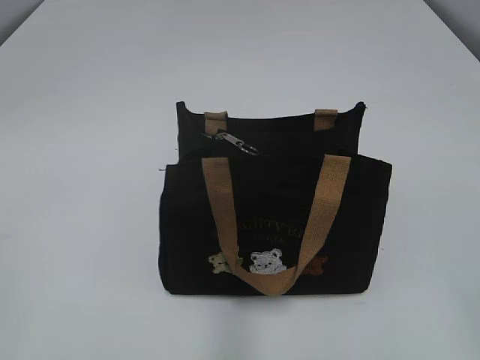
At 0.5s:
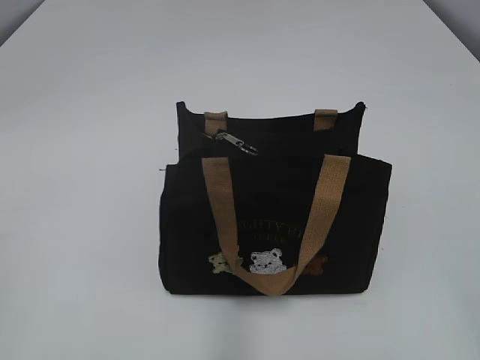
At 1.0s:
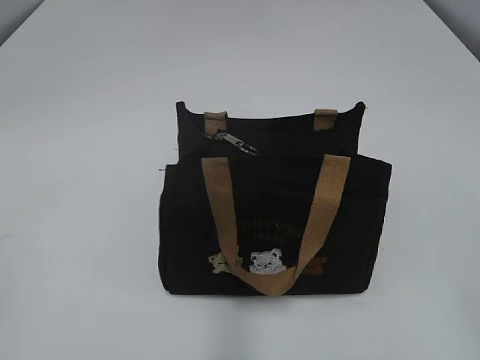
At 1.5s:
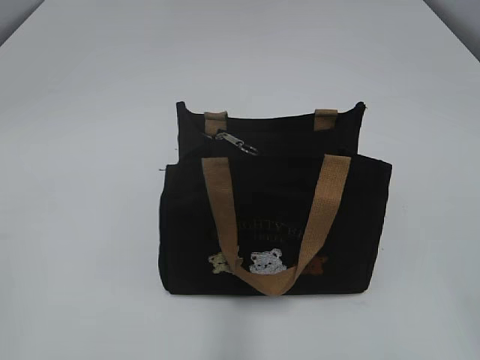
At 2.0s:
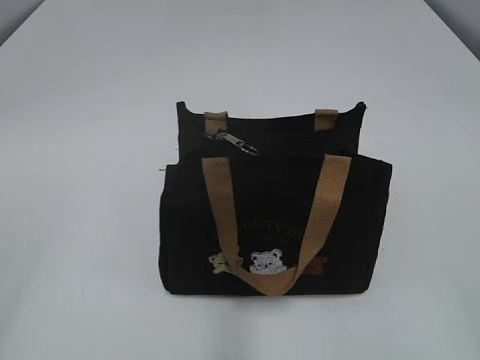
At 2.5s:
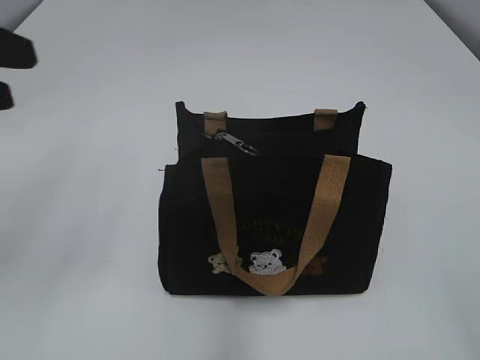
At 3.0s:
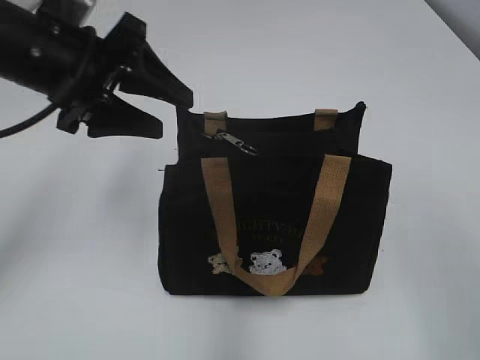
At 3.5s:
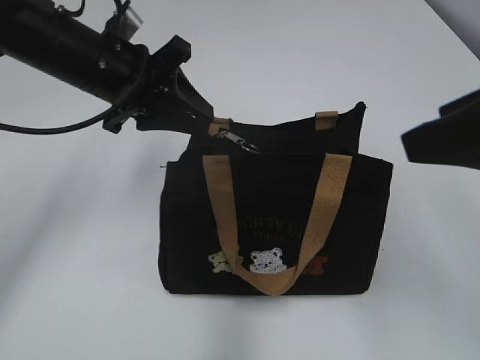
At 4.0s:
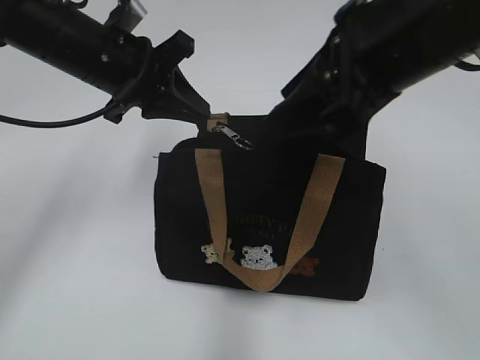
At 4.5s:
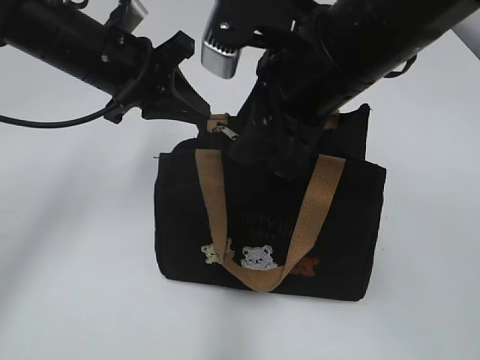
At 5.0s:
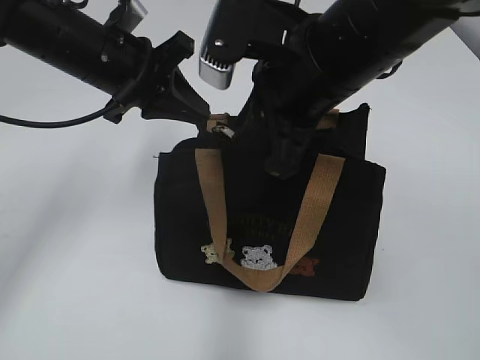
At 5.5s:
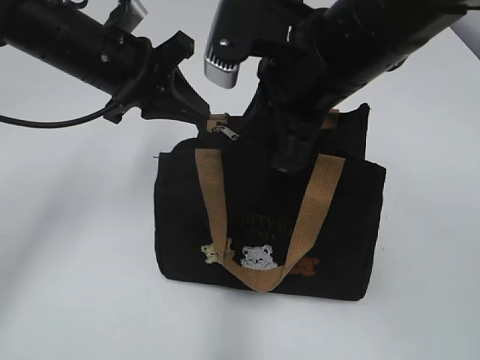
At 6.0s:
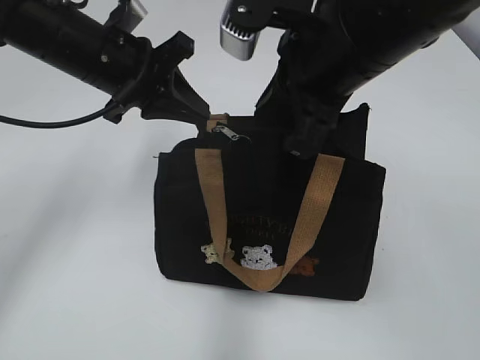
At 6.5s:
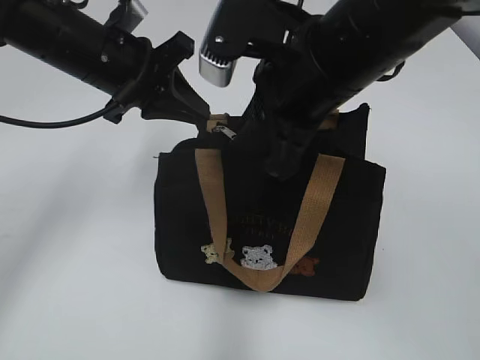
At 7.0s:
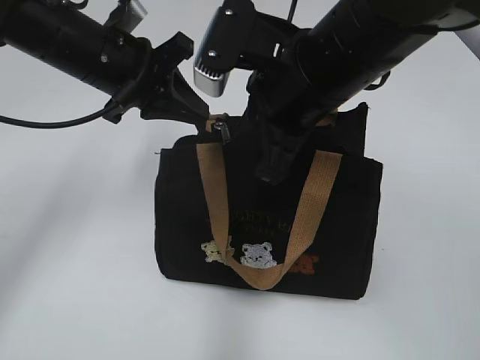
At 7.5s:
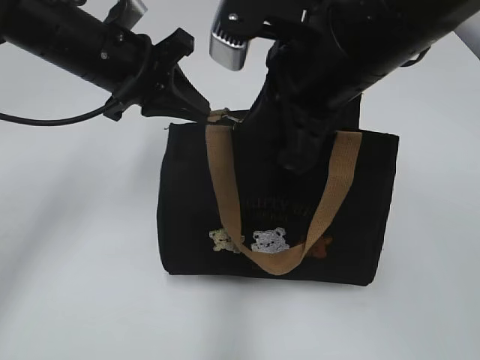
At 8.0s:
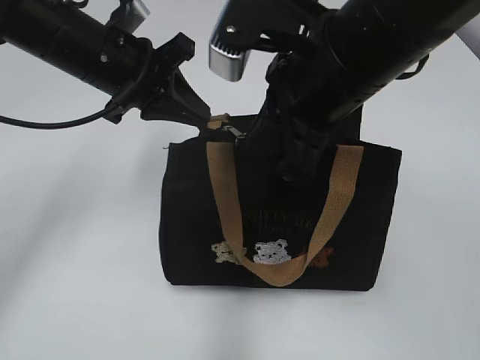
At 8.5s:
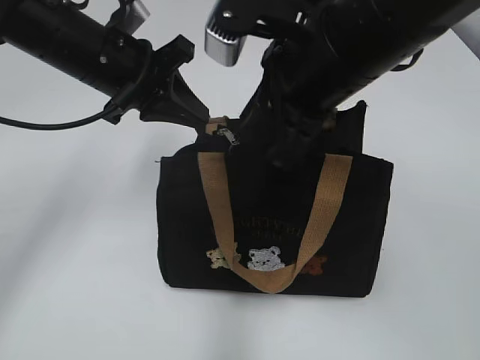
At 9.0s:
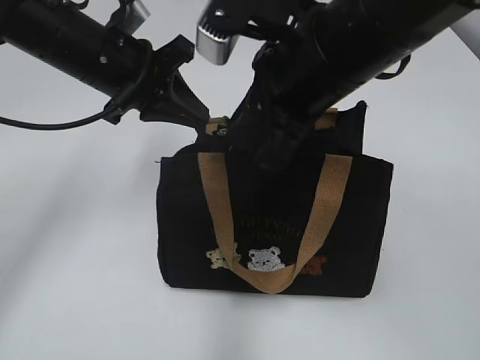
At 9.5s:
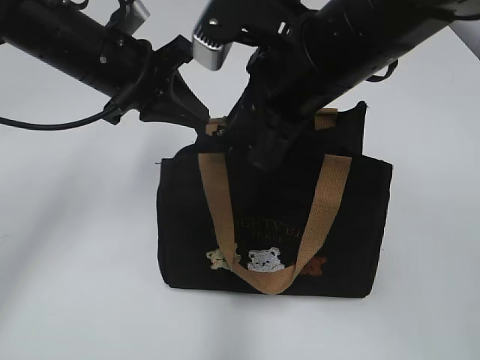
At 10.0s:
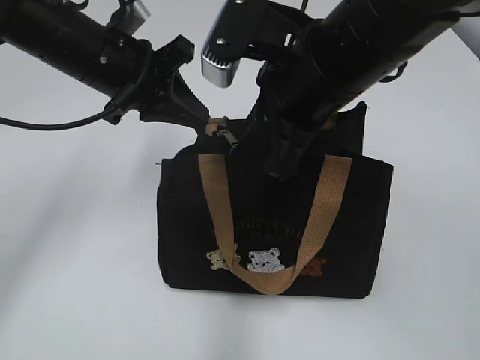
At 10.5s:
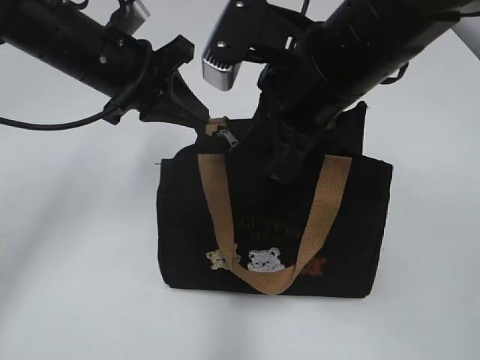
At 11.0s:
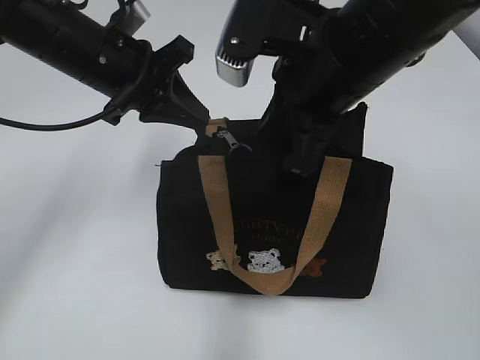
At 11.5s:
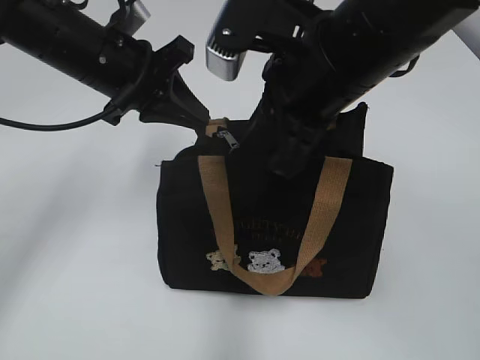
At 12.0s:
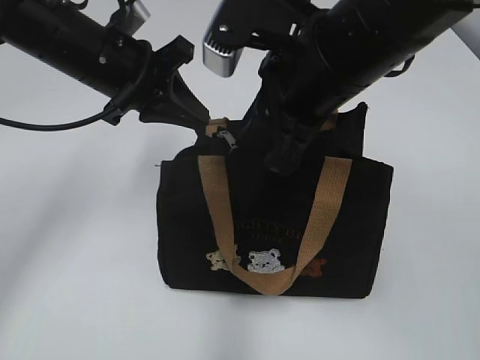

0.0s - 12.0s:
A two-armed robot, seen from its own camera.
2.0s - 4.0s: The right gripper moves forward and to the left, some 30 cm. The left gripper is displaced forward and to the right by approximately 40 cm, and closes its fingers.
4.0s - 6.0s: The right gripper closes up.
6.0s - 12.0s: The grippers move only a little.

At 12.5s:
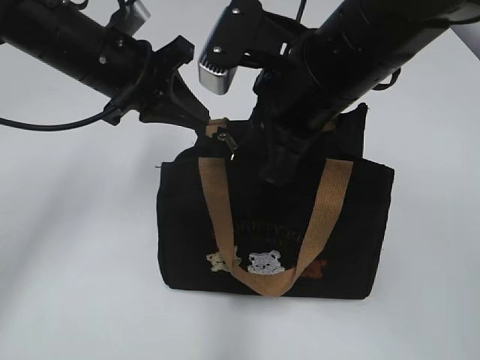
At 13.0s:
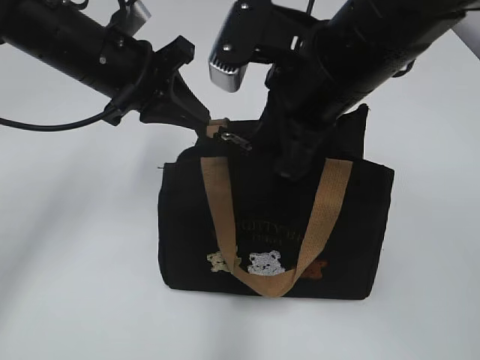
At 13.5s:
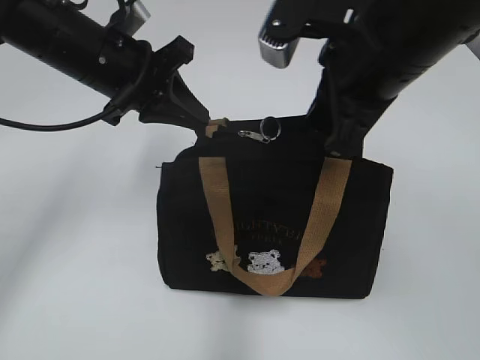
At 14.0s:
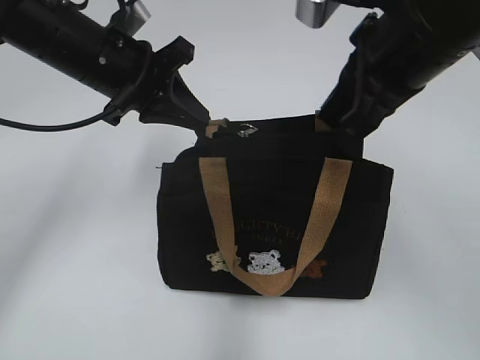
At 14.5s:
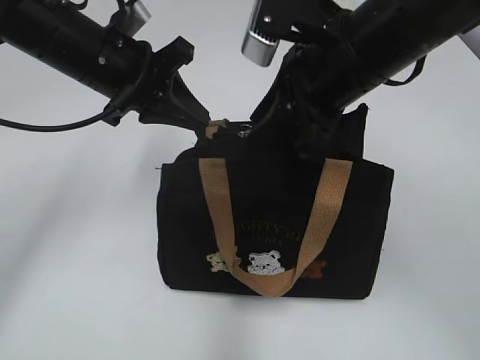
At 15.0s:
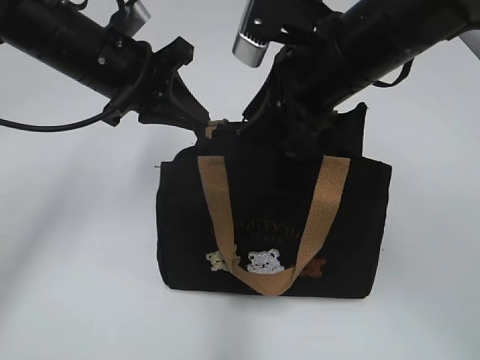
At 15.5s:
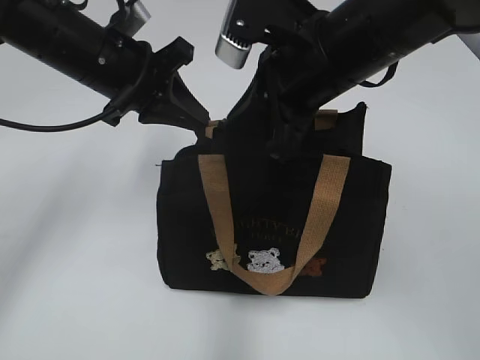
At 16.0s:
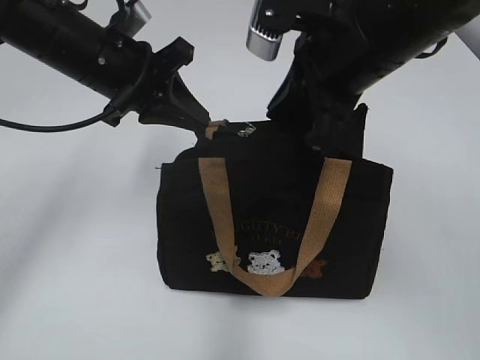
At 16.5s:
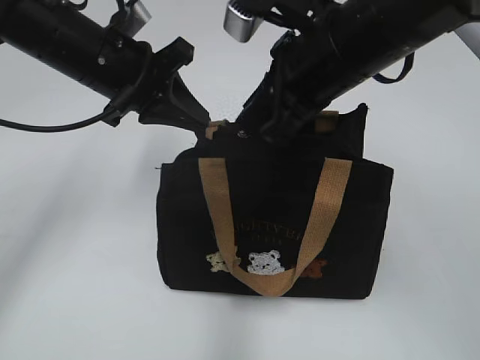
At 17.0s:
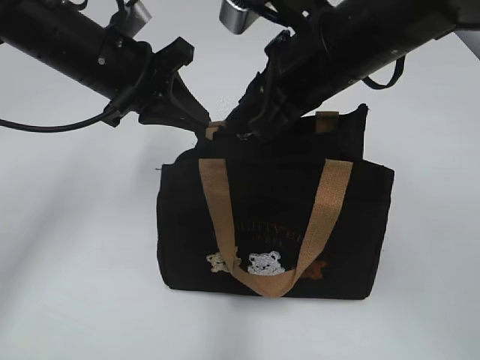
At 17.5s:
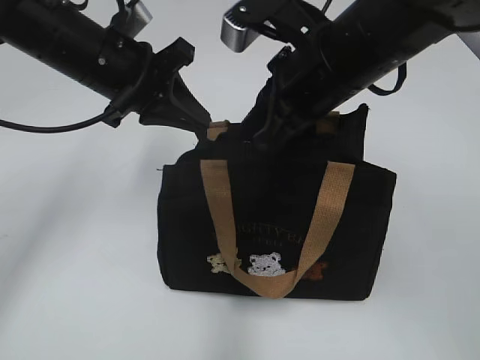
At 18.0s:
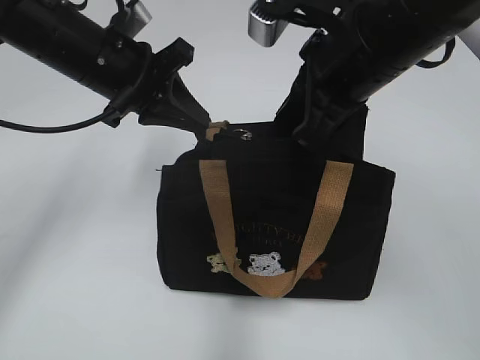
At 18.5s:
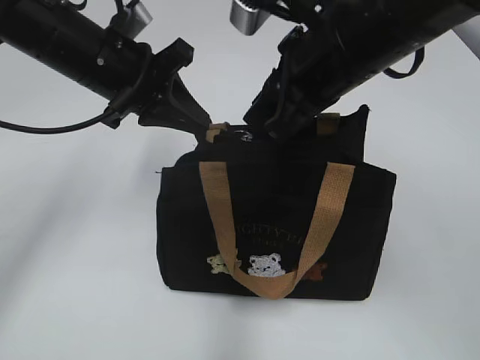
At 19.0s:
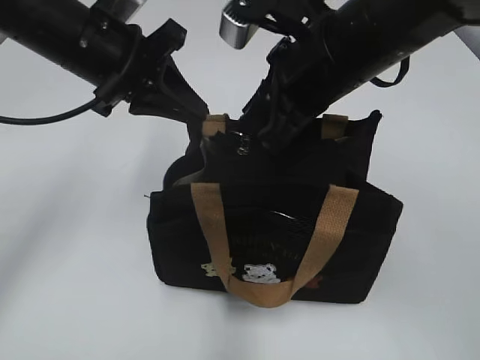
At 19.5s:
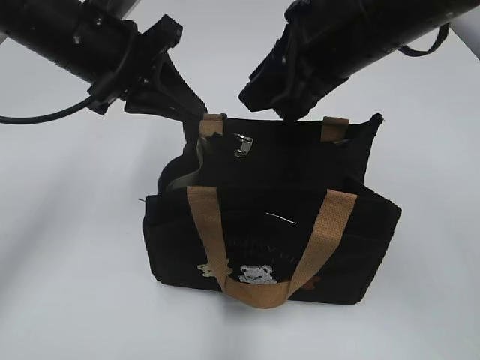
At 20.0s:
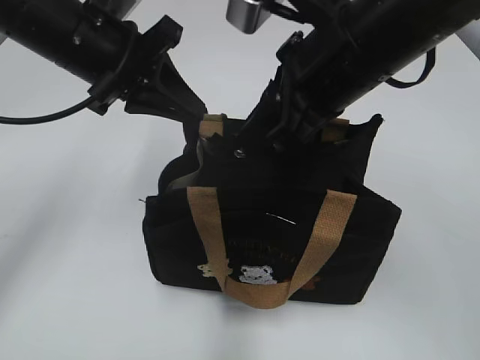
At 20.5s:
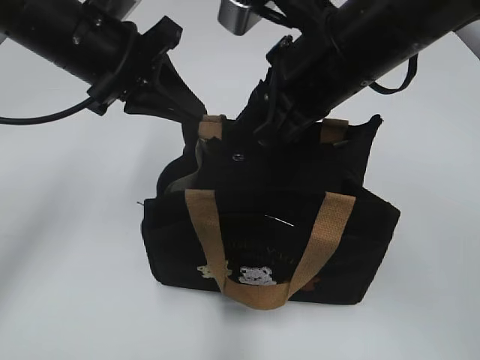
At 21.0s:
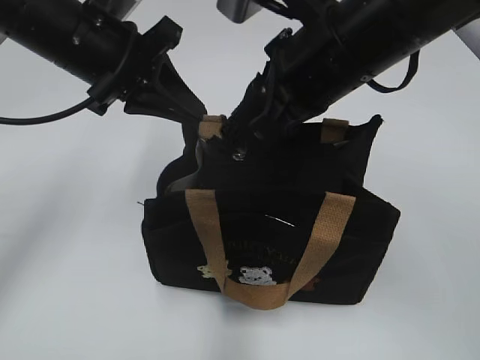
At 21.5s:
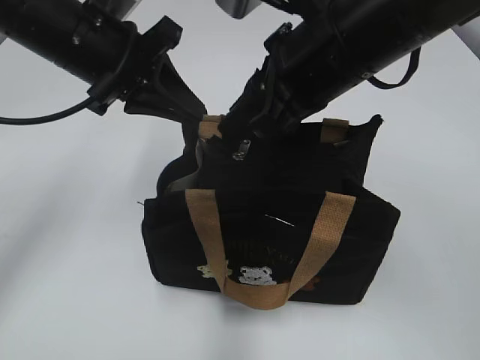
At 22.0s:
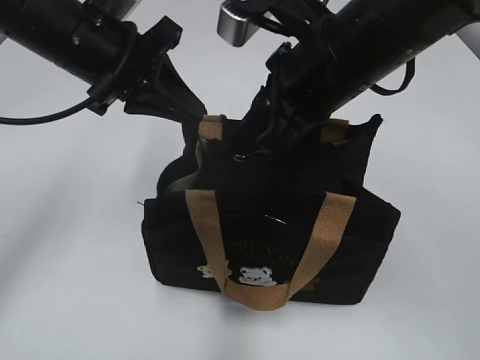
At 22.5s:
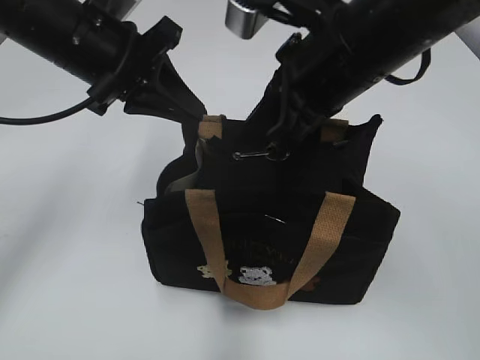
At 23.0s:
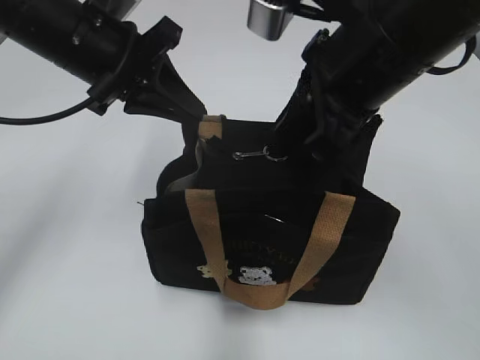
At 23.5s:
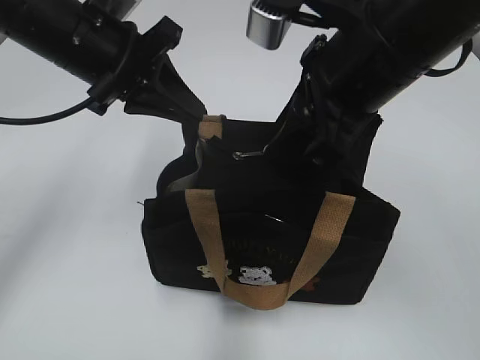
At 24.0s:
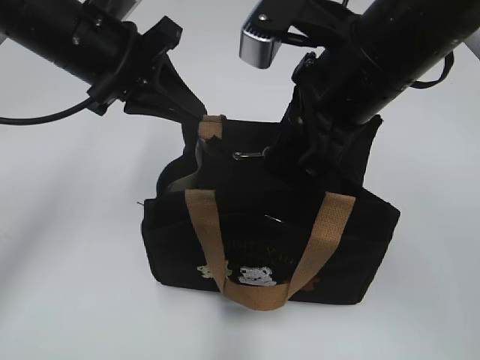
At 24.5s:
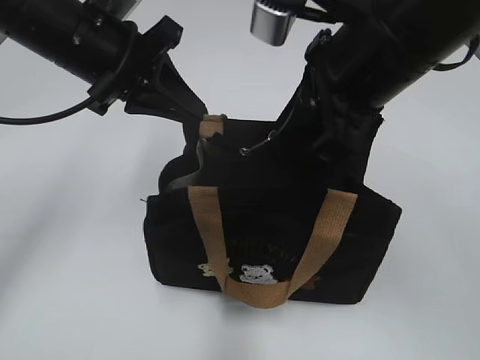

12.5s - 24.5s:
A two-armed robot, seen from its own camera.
14.5s - 20.5s: The grippers make only small movements.
20.5s - 22.5s: The right gripper closes its fingers.
22.5s - 24.5s: The right gripper opens.

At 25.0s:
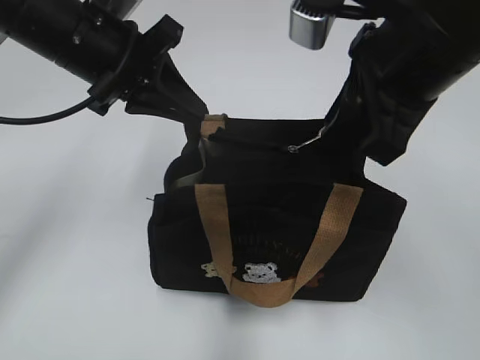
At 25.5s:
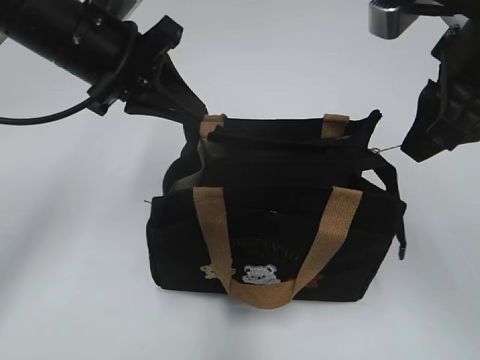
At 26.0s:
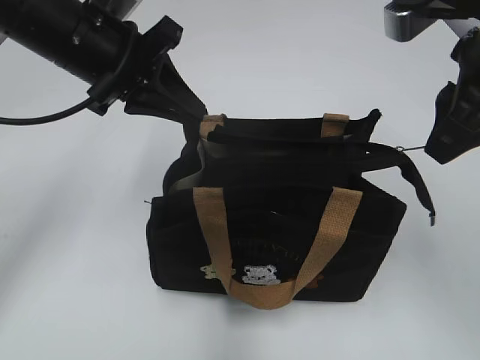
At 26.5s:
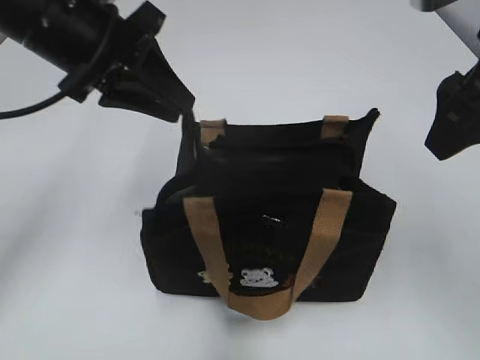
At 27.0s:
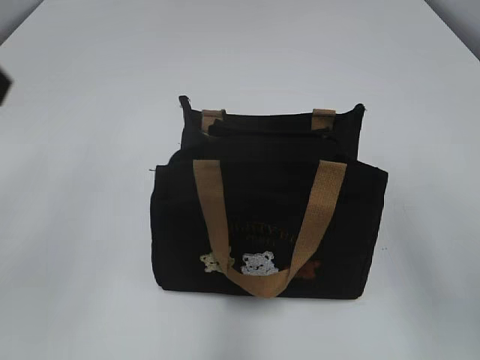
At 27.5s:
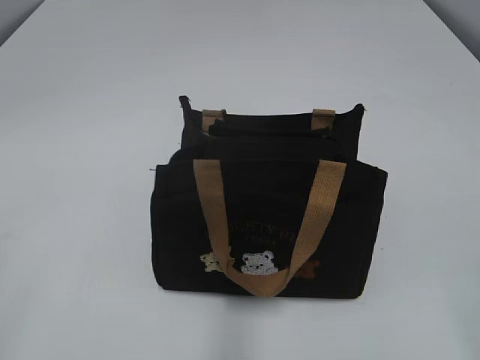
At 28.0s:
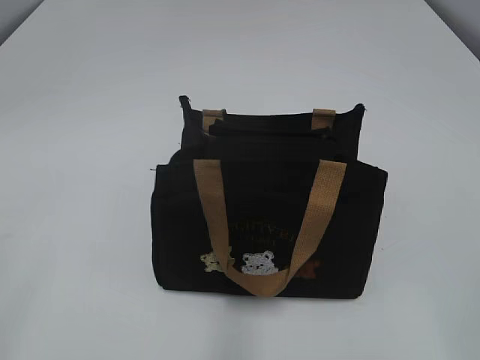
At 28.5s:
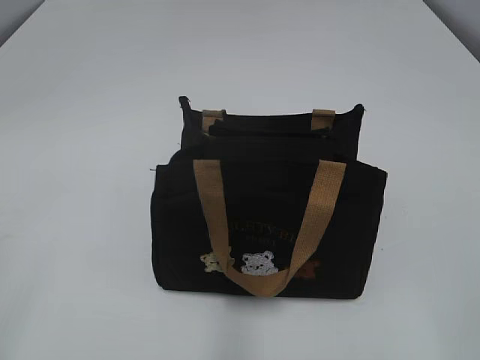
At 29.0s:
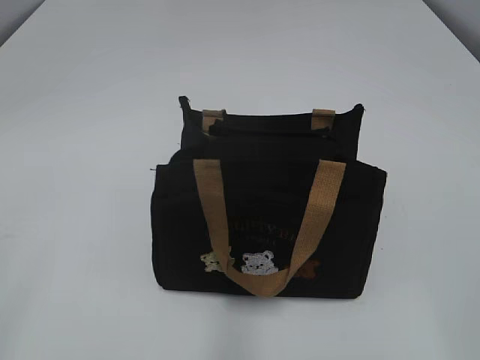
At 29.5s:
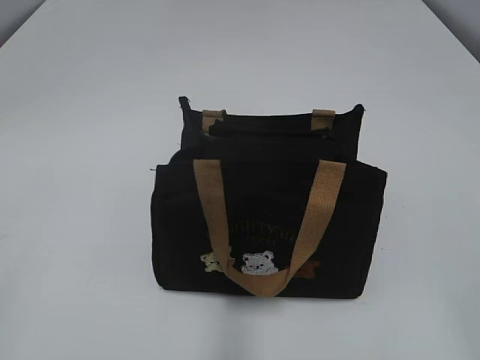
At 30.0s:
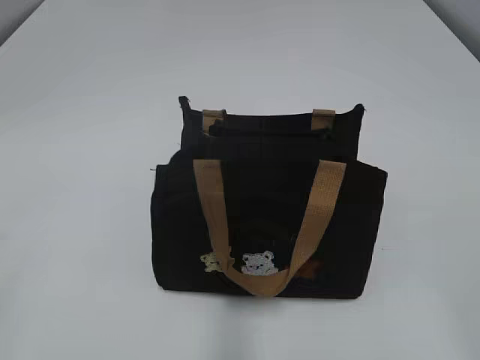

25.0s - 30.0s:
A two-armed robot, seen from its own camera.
25.0s - 27.5s: The right gripper goes approximately 30 cm backward and to the right, and opens. Meanwhile the left gripper moves backward and to the left, roughly 35 cm, and opens.
